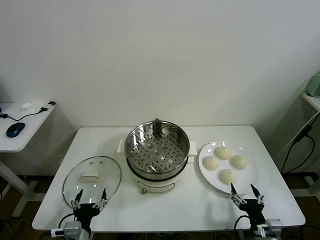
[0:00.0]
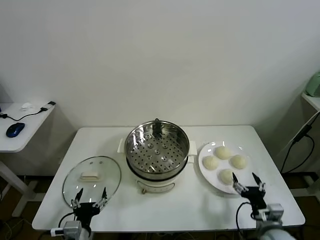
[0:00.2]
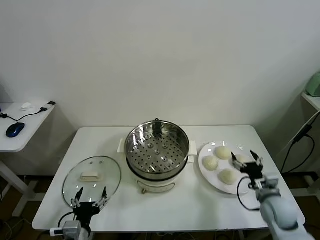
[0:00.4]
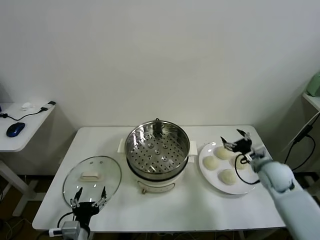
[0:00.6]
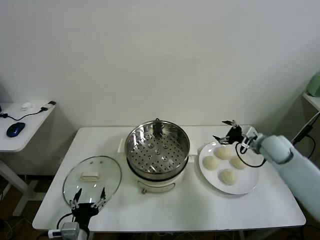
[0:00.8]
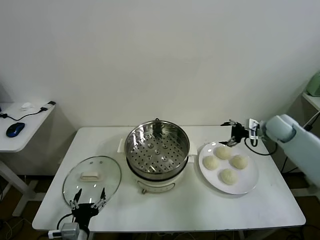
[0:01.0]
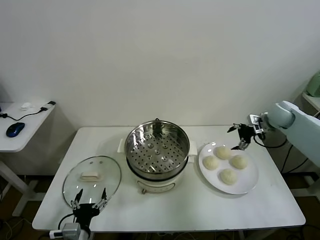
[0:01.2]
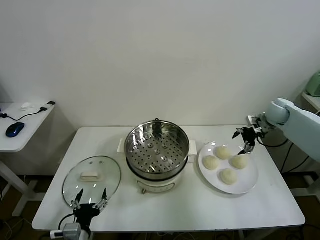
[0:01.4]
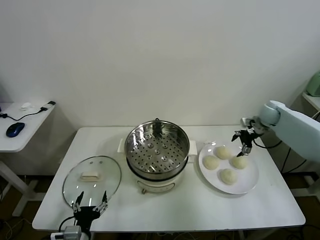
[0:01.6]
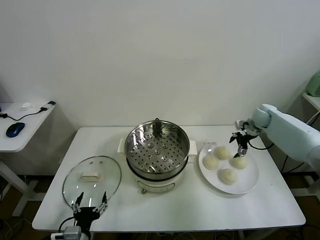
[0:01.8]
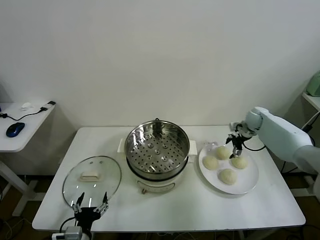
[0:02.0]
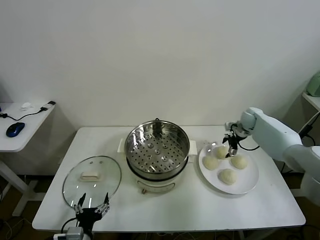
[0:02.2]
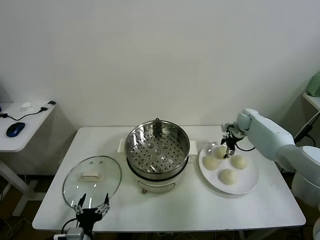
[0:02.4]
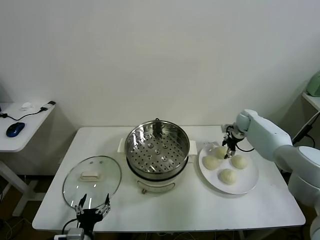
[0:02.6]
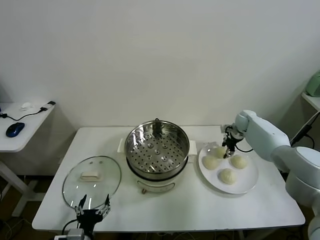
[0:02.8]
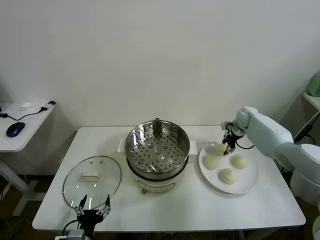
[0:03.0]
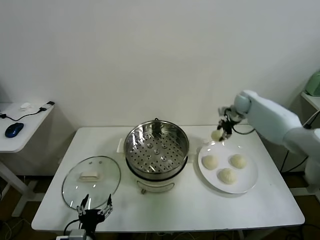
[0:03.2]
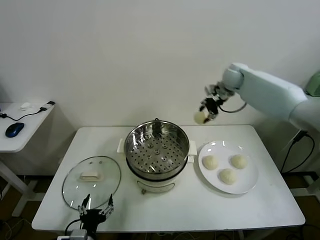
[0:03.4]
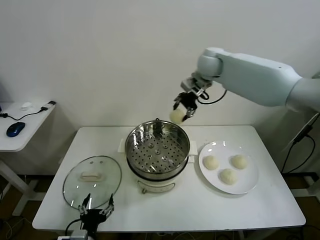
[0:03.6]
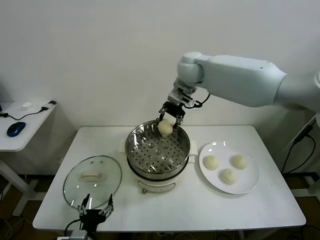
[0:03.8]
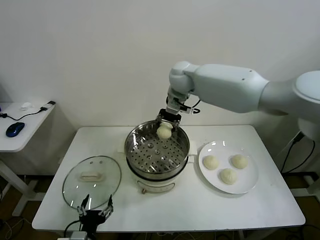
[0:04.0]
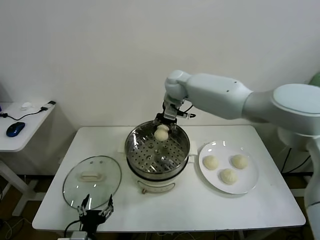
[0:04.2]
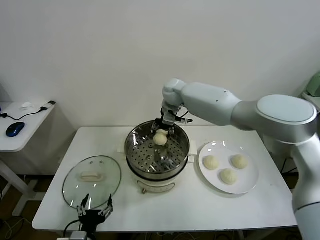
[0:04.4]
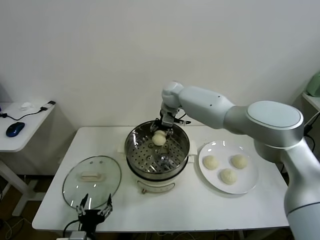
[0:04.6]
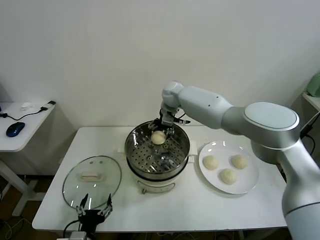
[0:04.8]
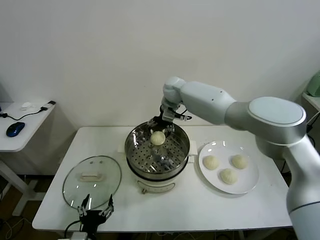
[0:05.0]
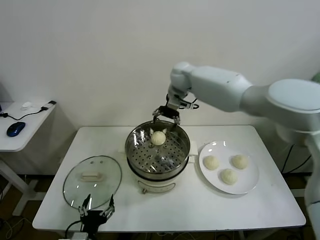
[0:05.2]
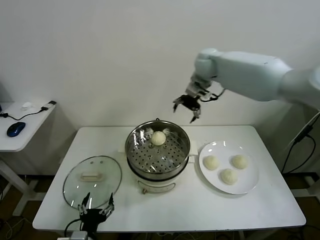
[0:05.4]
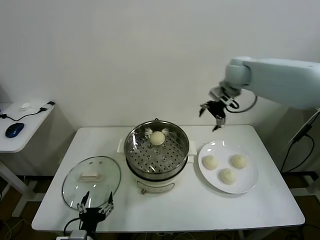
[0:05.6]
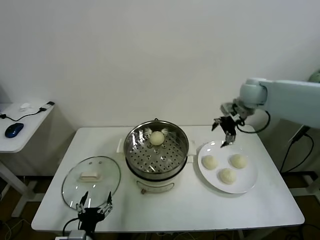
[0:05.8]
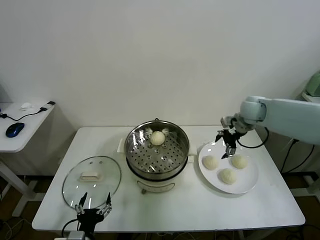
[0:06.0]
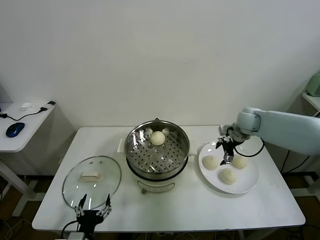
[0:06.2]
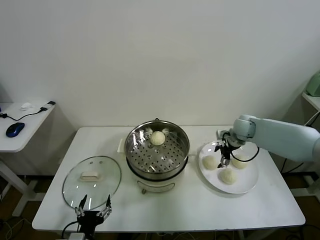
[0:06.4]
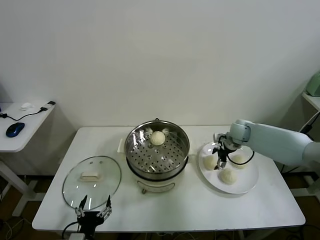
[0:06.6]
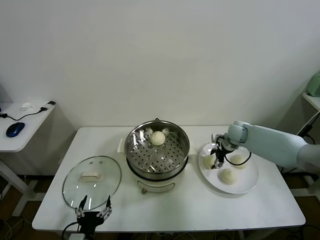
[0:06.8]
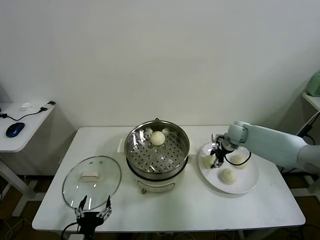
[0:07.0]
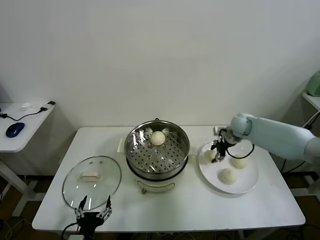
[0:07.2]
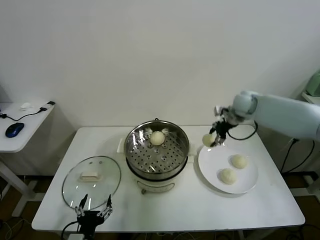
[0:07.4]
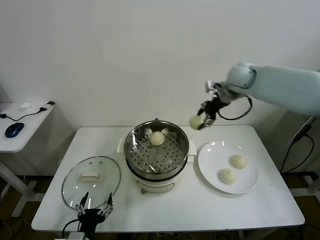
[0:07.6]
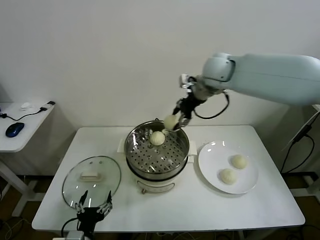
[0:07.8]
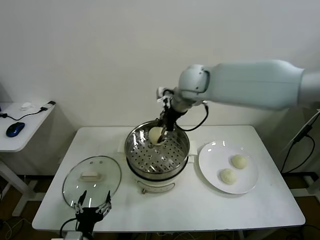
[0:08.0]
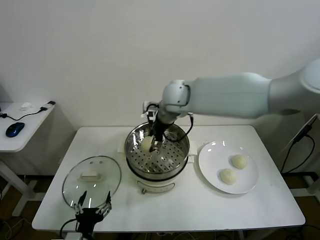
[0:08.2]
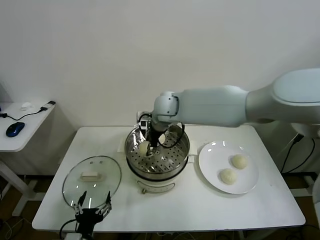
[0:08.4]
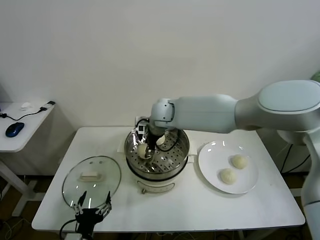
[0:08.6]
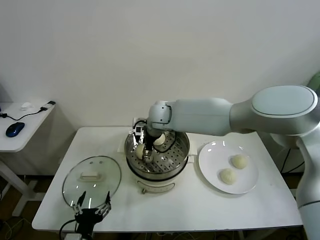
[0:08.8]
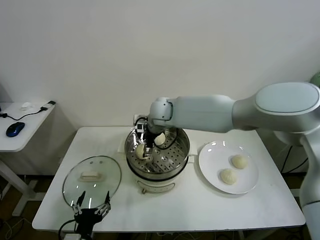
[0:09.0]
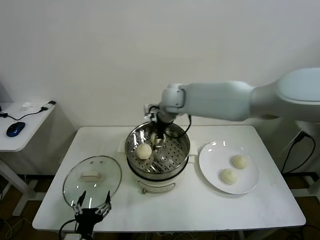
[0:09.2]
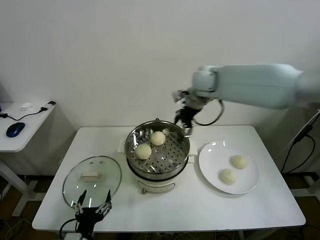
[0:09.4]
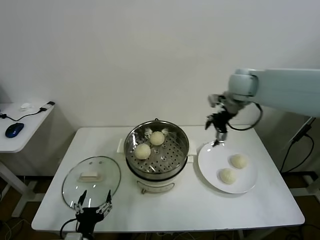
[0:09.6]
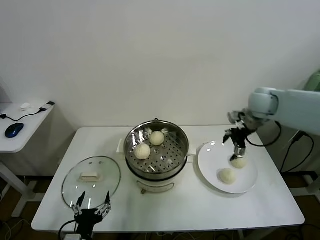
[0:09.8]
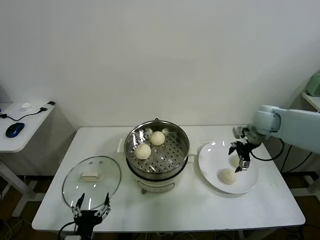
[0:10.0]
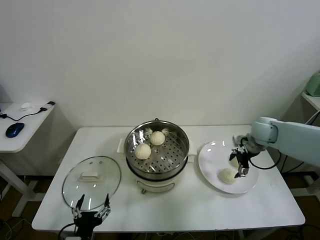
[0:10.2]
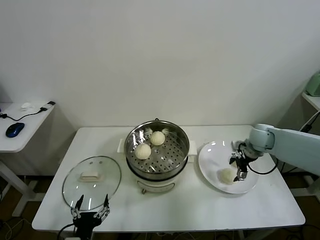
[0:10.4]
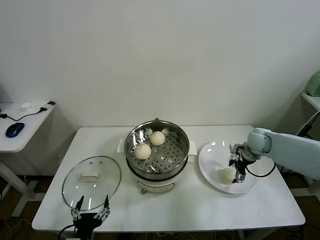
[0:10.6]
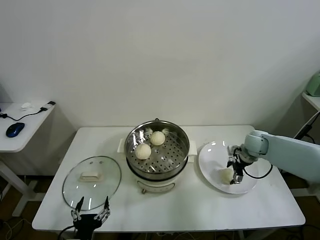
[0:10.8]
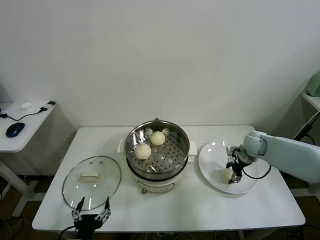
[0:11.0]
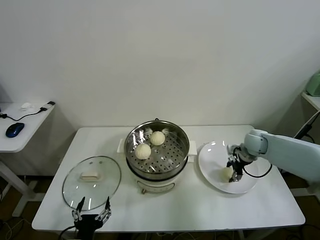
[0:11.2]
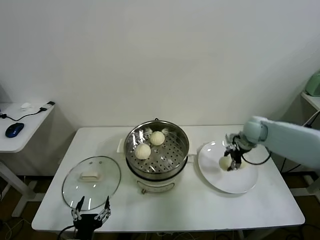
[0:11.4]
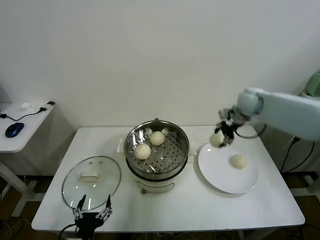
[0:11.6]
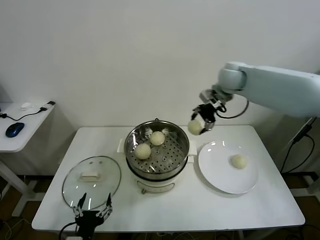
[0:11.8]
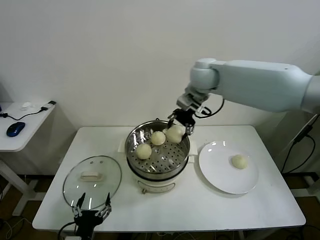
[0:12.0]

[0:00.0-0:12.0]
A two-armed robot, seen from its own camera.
Task of the whole recording: take steamed baozi put them in steamer.
Step, 0:00.0 to 0:02.6: Grasp the baozi in the plate with right gripper.
Step, 0:02.8 to 0:04.8: Place the baozi on the steamer with right gripper.
Step, 0:05.0 to 0:06.8: Grasp the baozi in the plate with right gripper.
Step, 0:07.0 to 0:09.0: Place the baozi on the steamer with right gripper.
Step, 0:09.2 to 0:11.0: Grasp the baozi in the plate with right gripper.
0:01.6 to 0:03.0: The right gripper shifts some 5 cm to the left, and closes.
0:03.0 to 0:04.4: The right gripper heads to the left, covering approximately 30 cm.
0:04.4 to 0:06.0: The right gripper goes about 30 cm to the right, and opens.
0:06.0 to 0:07.6: The right gripper moves upward and to the left, about 20 cm, and closes its fingers.
0:07.6 to 0:09.0: The right gripper goes approximately 25 cm to the left and downward, and opens up.
0:09.0 to 0:10.4: The right gripper goes approximately 35 cm to the right.
0:10.4 to 0:12.0: The right gripper is displaced to the left and upward by about 35 cm, and closes up.

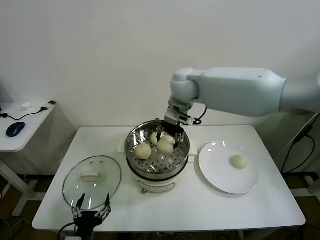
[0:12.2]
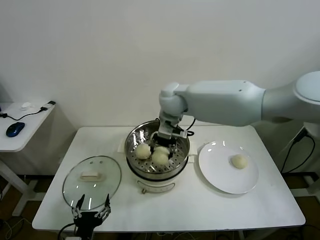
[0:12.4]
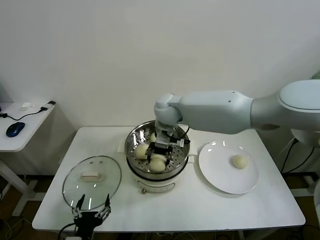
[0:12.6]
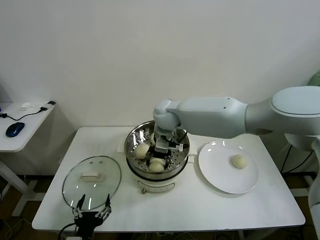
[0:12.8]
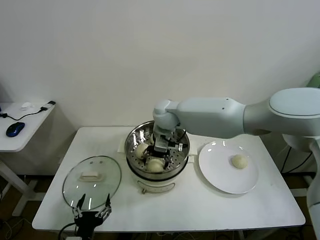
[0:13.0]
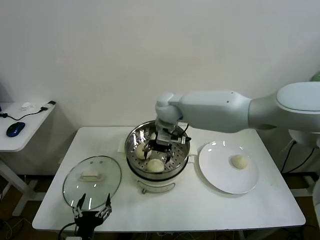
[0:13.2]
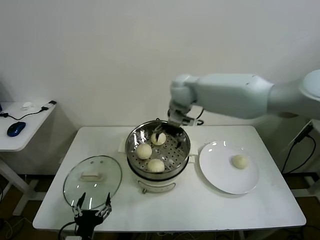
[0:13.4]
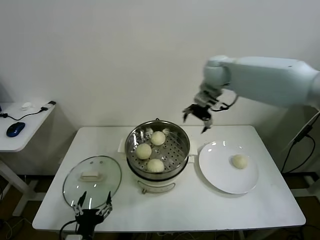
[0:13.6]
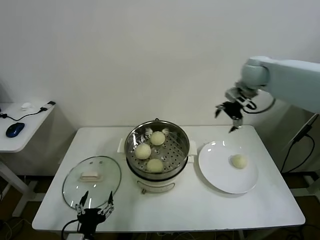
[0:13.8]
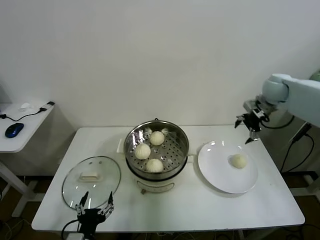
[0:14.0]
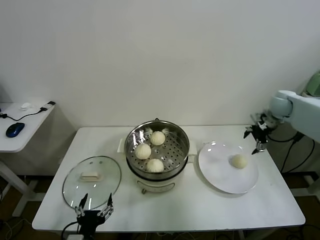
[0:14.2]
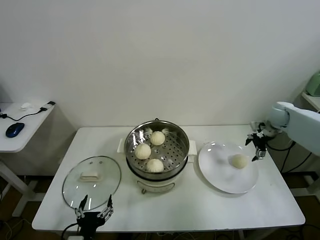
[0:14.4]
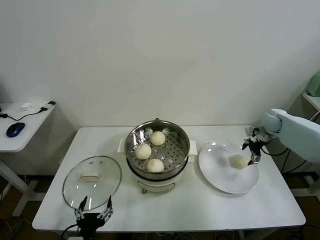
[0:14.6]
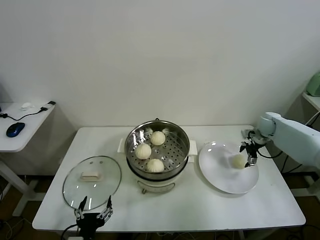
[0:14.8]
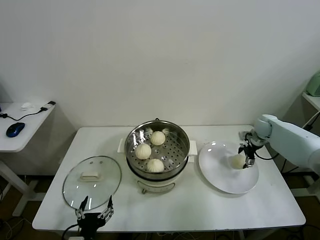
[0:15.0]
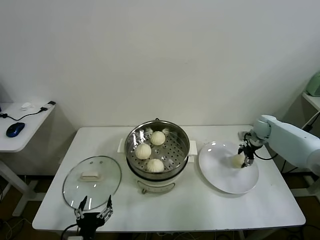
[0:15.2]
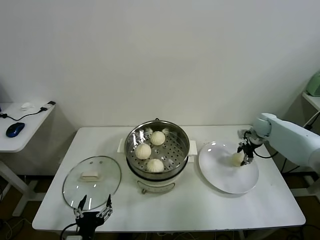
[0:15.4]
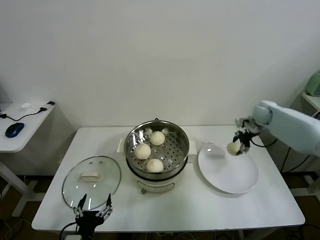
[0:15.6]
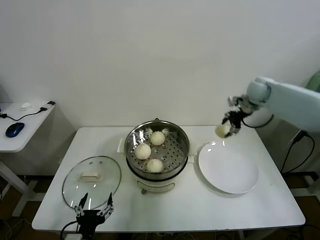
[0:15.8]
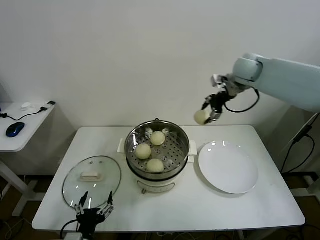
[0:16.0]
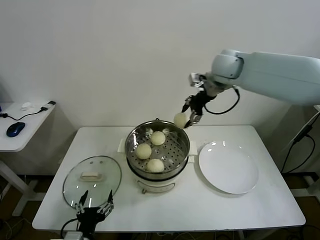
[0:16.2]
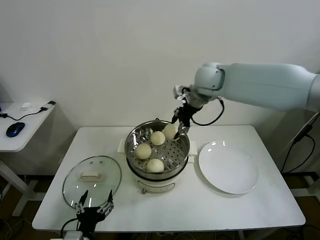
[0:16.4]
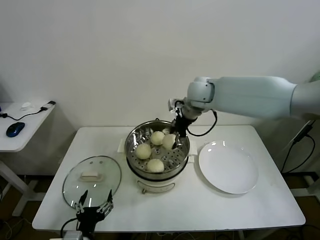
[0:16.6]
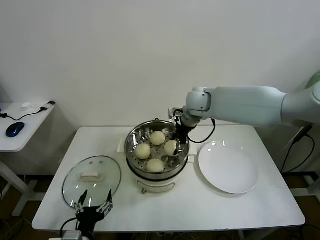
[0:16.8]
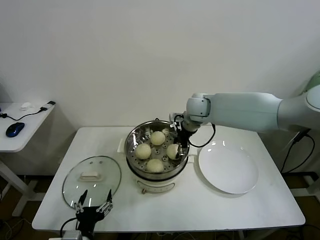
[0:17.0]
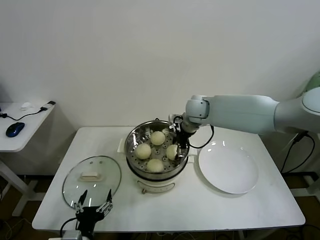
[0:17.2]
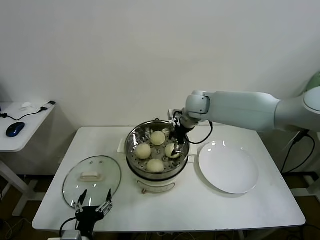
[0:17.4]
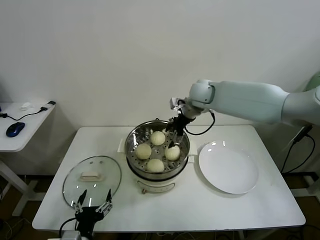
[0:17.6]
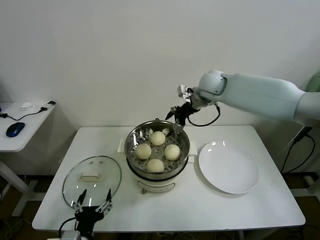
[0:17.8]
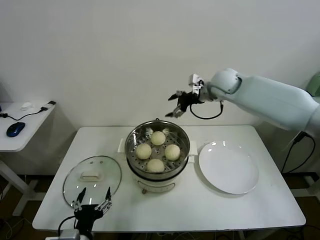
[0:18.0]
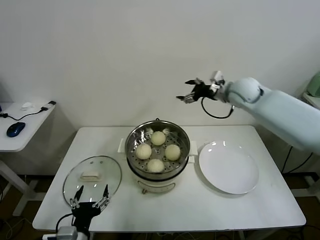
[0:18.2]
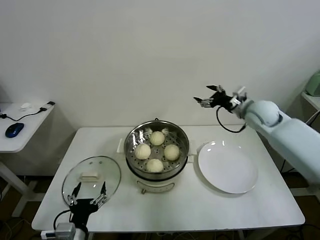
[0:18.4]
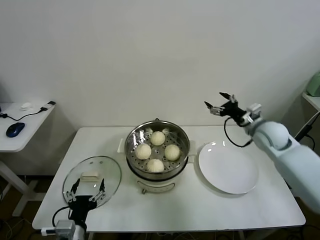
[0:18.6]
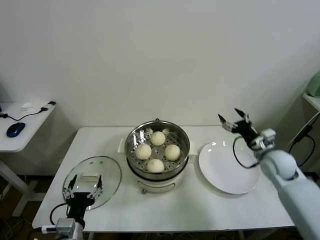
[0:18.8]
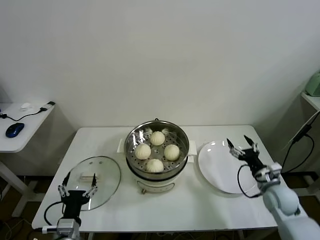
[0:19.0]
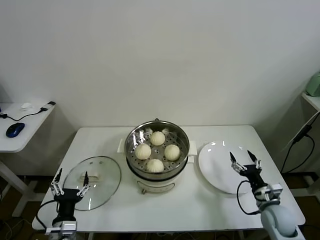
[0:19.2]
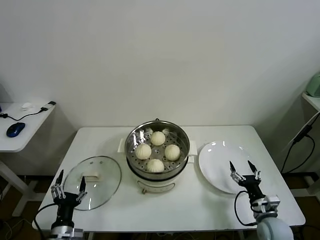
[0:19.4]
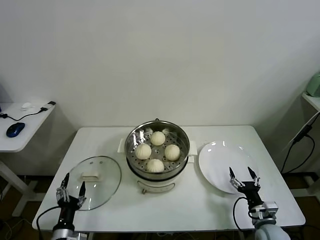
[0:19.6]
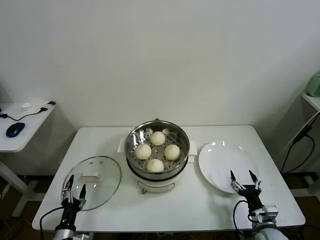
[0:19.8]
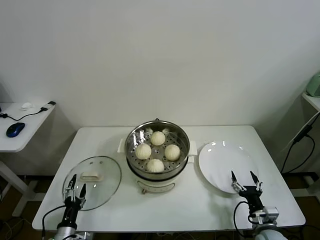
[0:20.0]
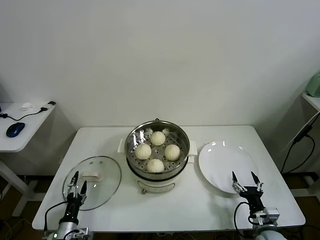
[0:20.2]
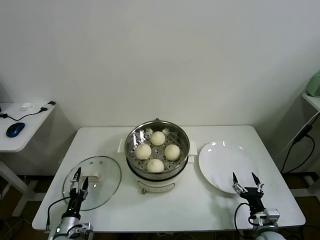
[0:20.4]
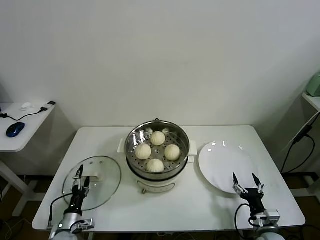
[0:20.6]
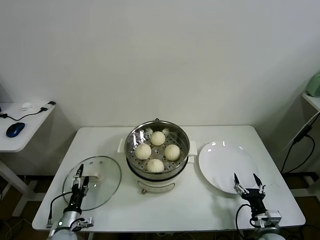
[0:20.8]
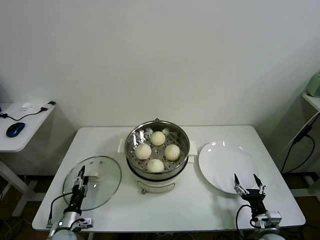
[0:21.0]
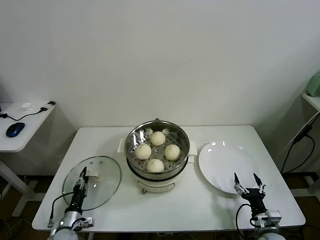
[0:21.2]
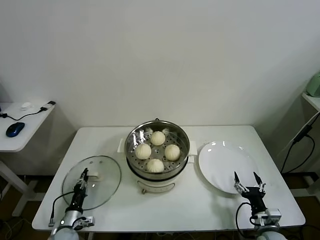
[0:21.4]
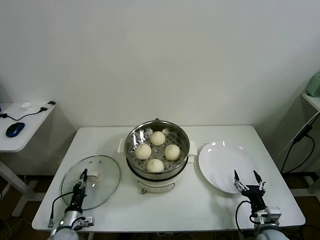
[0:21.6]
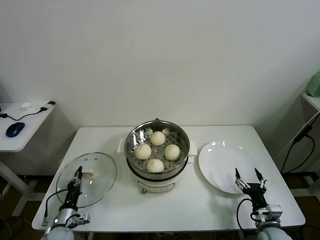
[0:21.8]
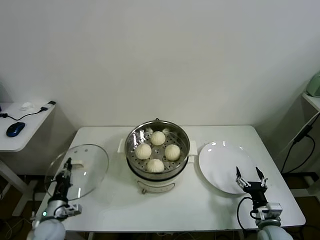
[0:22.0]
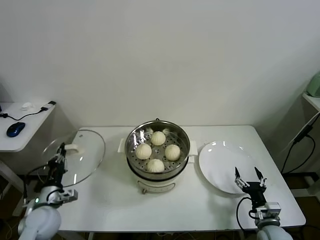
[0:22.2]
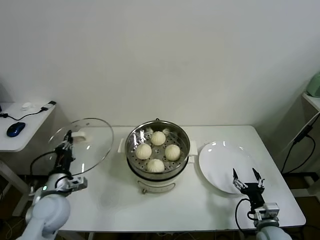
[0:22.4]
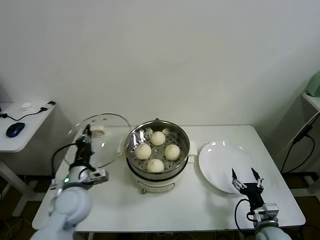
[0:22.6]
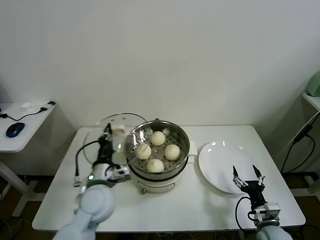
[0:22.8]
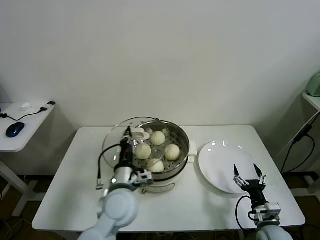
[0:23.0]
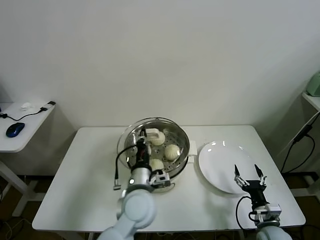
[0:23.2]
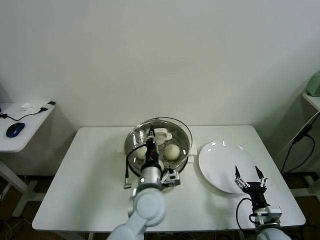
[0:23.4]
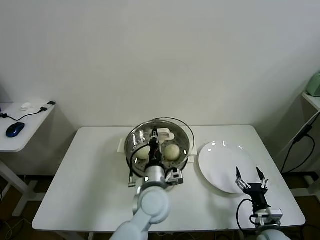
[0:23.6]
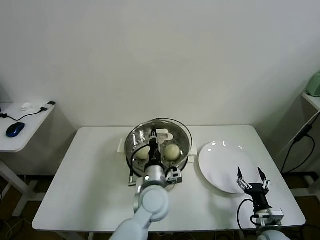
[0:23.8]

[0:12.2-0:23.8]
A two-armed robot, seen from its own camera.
Task of the whole recording: take steamed baozi put them in steamer.
Step, 0:13.4 to 0:15.2: Grasp the baozi in the plate with right gripper.
Step, 0:15.4 to 0:17.4: Place the baozi on the steamer with right gripper.
Step, 0:17.6 to 0:21.6: Grasp the pot lid with left gripper.
0:12.2 to 0:13.6: The right gripper shifts about 15 cm to the right, and opens up.
0:13.6 to 0:15.0: The right gripper is displaced downward and to the right by approximately 35 cm.
0:15.0 to 0:16.6: The right gripper heads to the left and upward, covering about 35 cm, and closes up.
0:16.6 to 0:18.0: The right gripper is displaced to the right by some 10 cm, and opens its fingers.
0:18.0 to 0:19.4: The right gripper is displaced downward, backward and to the right by about 50 cm, while the left gripper is displaced downward and to the left by roughly 10 cm.
0:19.4 to 0:21.0: The right gripper shifts by approximately 5 cm. Meanwhile the left gripper moves downward, forward and to the left, approximately 15 cm.
0:21.0 to 0:22.4: The left gripper moves upward, some 20 cm, and closes up.
0:22.4 to 0:23.8: The left gripper heads to the right, covering some 30 cm.
